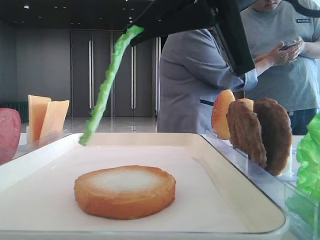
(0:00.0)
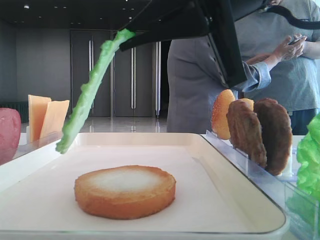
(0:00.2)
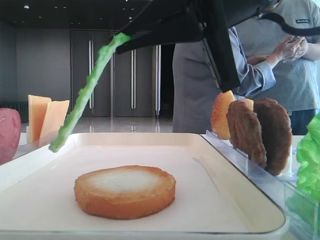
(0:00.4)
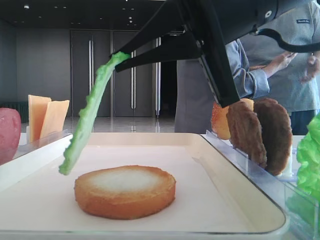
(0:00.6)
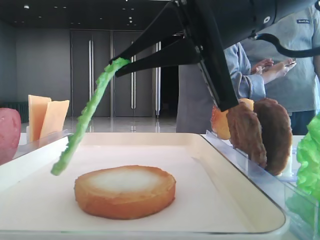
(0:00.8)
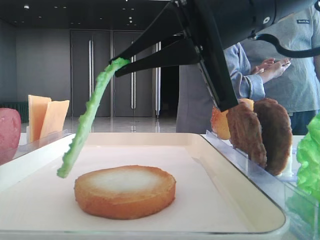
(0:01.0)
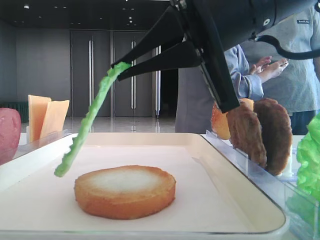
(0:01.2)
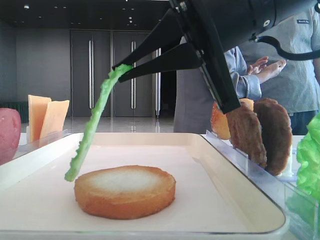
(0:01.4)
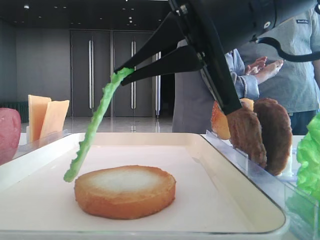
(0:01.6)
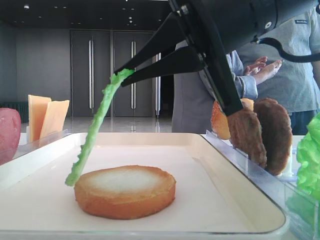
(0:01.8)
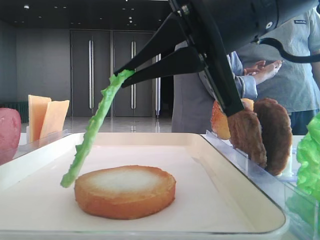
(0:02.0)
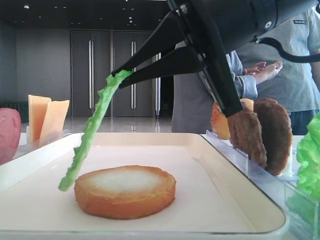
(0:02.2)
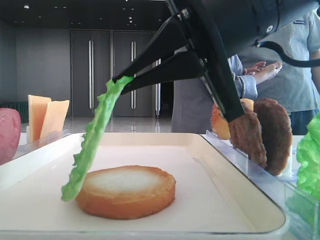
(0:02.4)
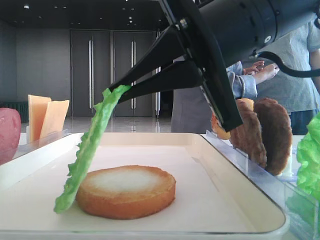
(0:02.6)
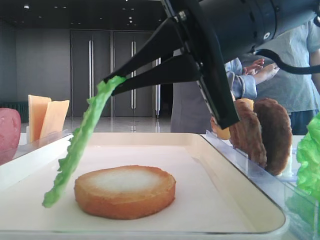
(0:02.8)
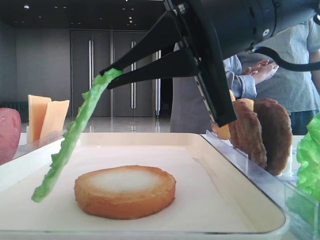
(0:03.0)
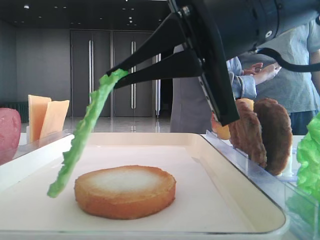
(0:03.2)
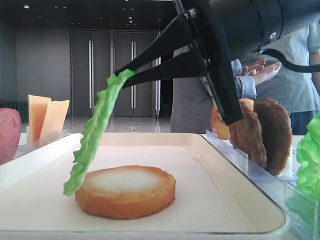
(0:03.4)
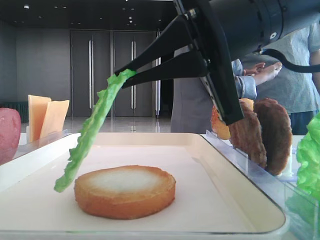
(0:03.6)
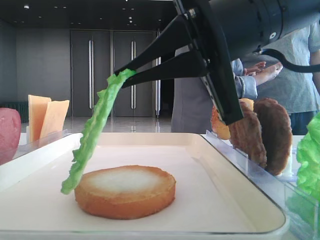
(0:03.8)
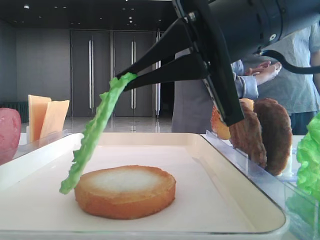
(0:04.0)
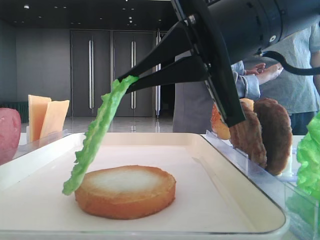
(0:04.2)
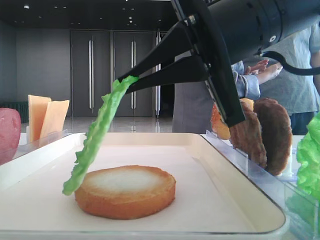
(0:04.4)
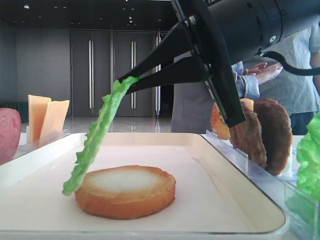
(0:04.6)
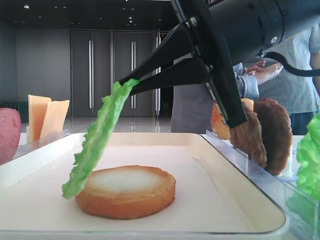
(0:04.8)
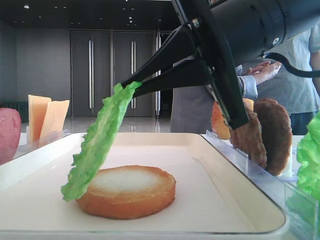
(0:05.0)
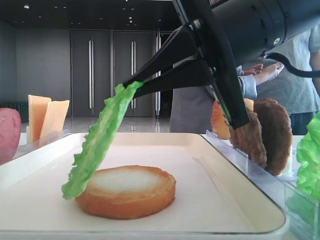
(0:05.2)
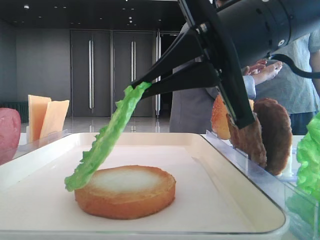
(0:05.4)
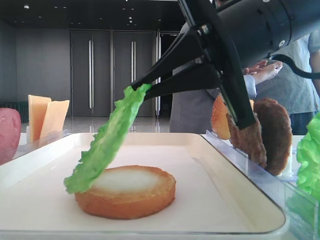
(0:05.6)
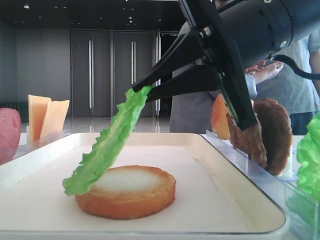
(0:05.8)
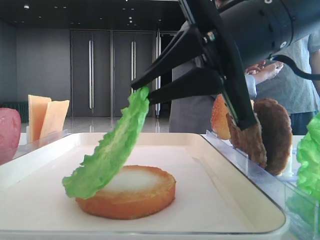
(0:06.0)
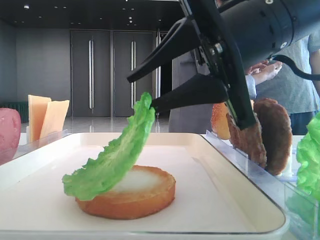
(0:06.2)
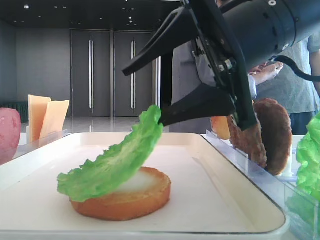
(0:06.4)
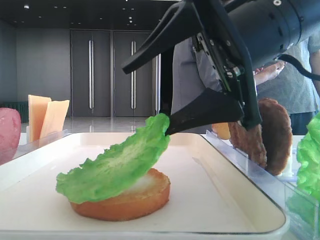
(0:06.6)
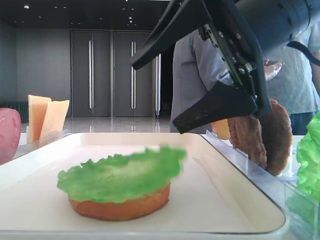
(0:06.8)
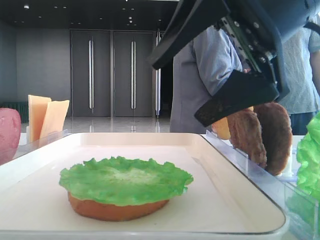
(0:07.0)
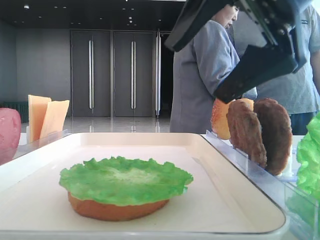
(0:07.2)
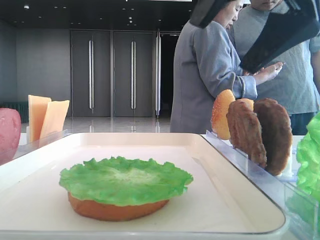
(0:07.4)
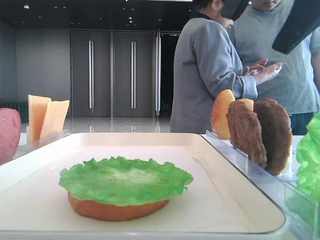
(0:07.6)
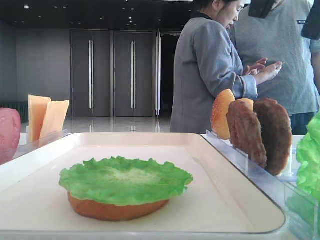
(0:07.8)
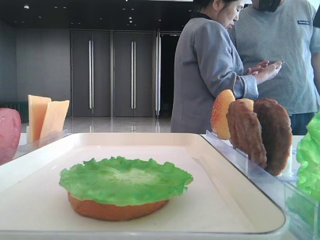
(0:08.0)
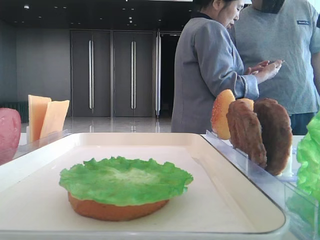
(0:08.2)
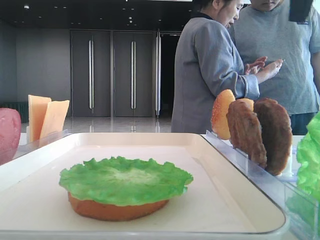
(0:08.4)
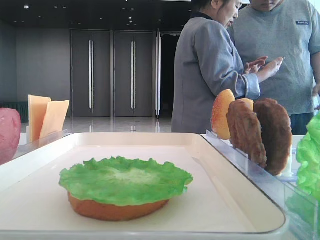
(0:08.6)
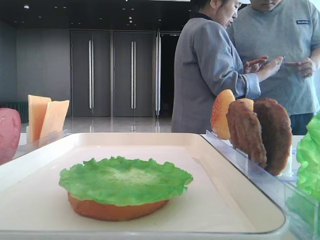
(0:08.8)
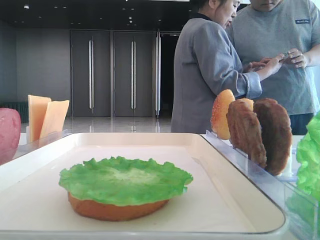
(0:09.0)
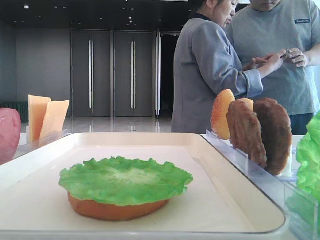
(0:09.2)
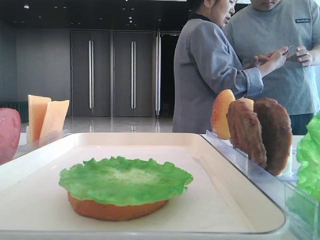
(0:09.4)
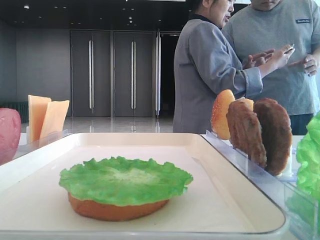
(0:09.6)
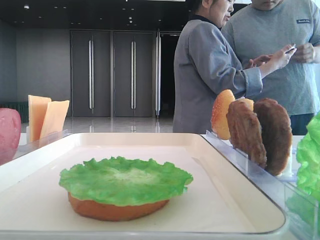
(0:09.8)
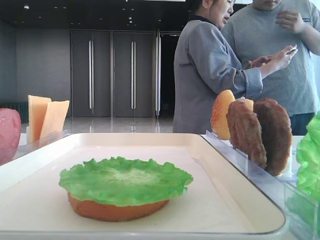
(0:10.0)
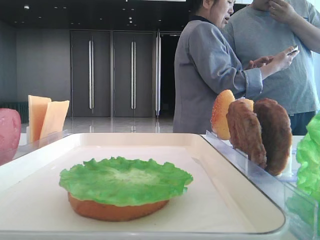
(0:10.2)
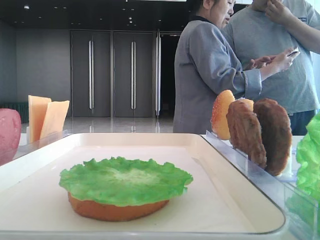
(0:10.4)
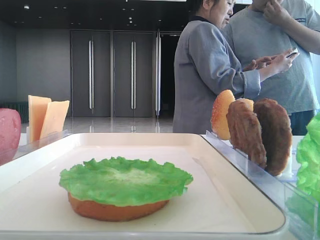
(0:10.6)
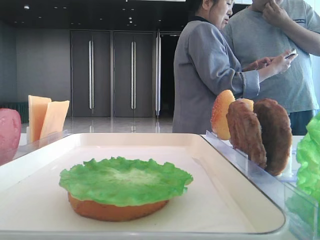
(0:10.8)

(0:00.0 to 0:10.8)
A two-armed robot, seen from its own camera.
Step, 0:00.0 - 0:06.6: Place the lettuce leaf on the bottom bread with the right hand.
0:00.0 - 0:04.6: There are only small adjustments of the grippers.
0:04.6 - 0:06.2: The right gripper opens.
0:06.2 - 0:07.8: The right gripper goes approximately 15 cm upward and to the right, and opens its fingers.
0:07.8 - 0:09.2: The right gripper goes approximately 20 cm to the right.
0:09.2 - 0:10.8: The right gripper heads backward, covering some 25 cm.

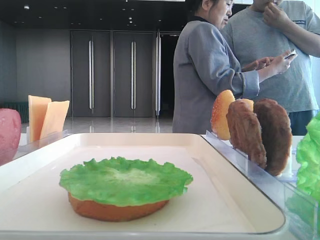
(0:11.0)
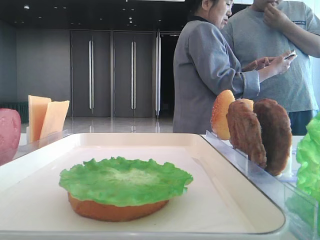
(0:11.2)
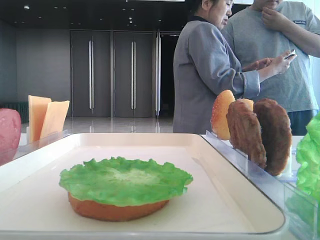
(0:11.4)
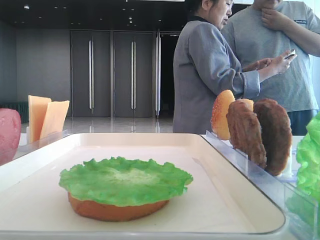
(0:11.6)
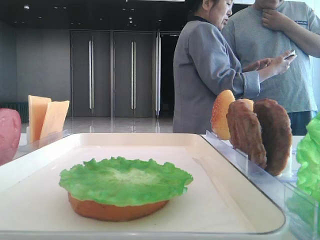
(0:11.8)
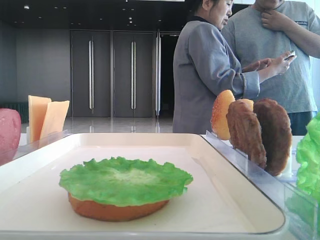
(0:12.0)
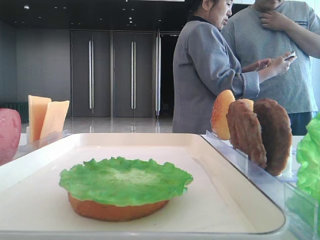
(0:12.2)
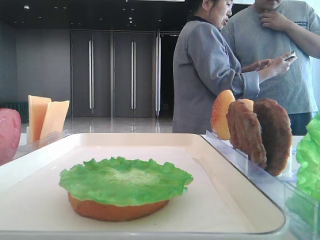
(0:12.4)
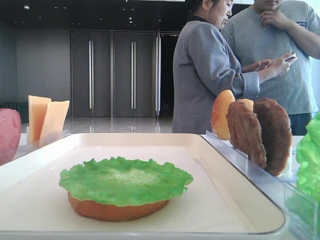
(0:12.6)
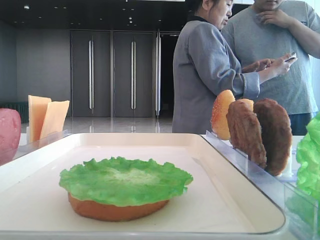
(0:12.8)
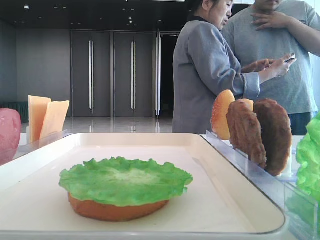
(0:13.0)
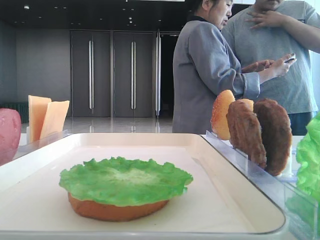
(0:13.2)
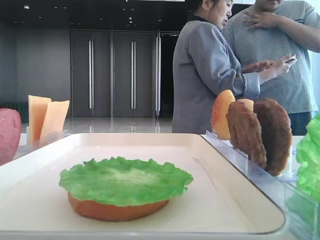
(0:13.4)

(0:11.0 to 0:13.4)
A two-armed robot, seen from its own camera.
0:11.0 - 0:12.2: There are only small adjustments of the grippers.
0:12.2 - 0:13.4: Both grippers stay put.
